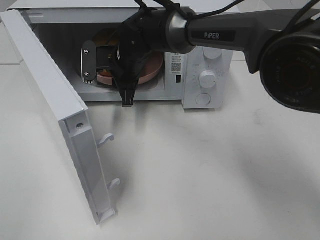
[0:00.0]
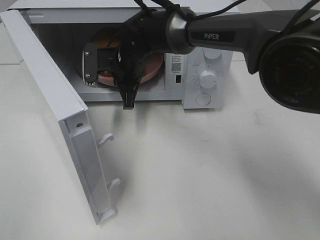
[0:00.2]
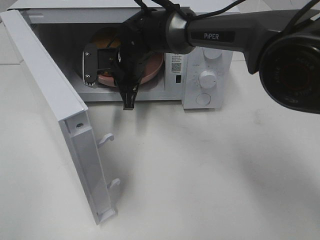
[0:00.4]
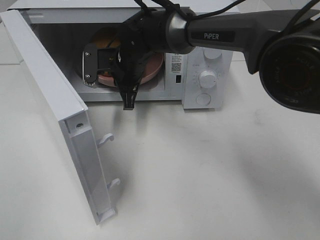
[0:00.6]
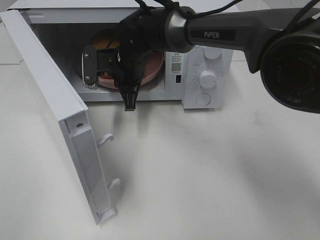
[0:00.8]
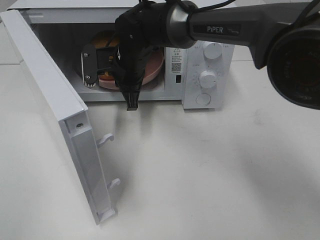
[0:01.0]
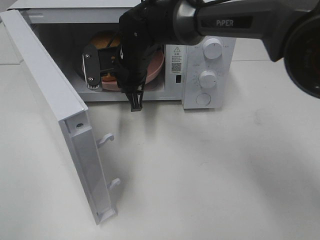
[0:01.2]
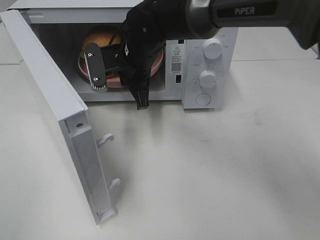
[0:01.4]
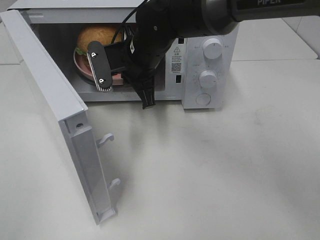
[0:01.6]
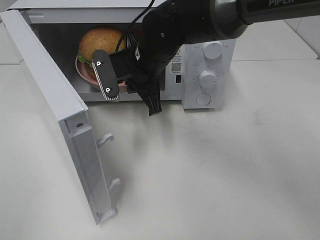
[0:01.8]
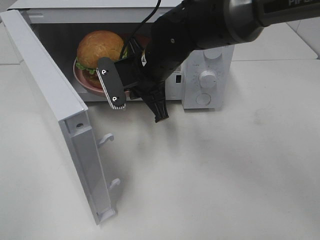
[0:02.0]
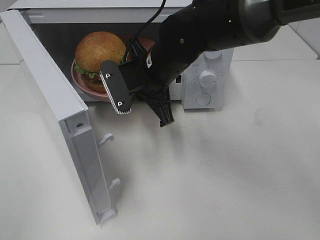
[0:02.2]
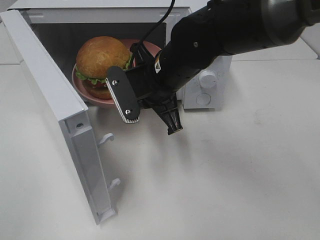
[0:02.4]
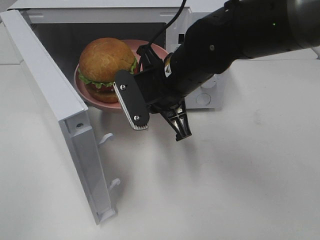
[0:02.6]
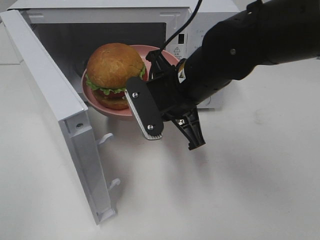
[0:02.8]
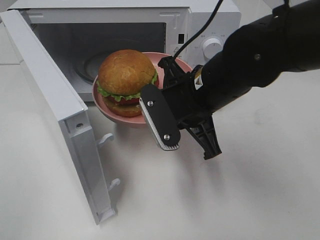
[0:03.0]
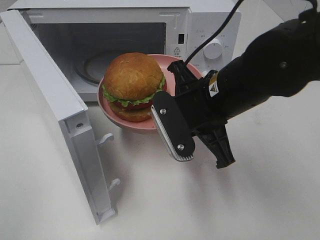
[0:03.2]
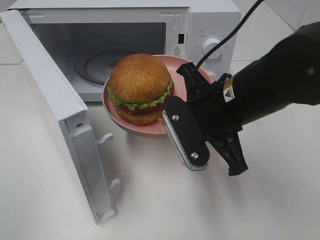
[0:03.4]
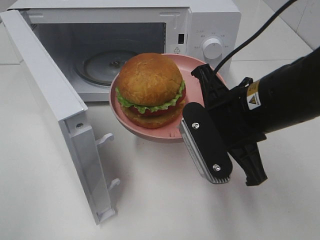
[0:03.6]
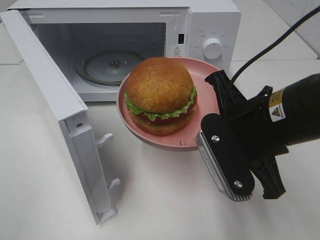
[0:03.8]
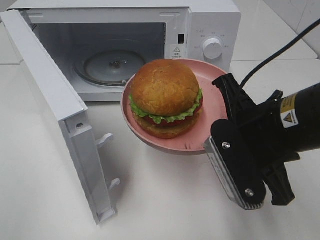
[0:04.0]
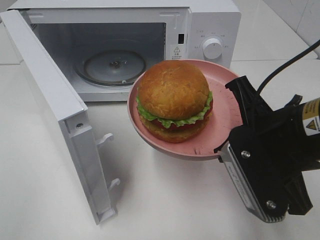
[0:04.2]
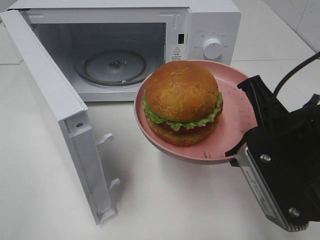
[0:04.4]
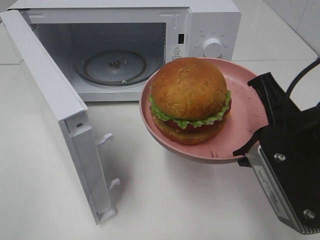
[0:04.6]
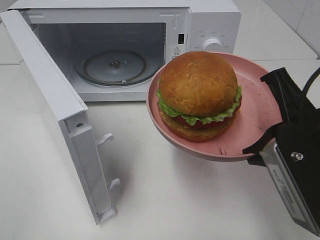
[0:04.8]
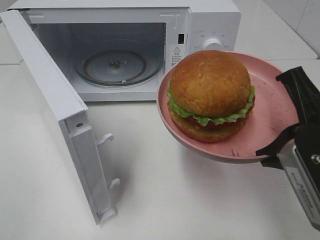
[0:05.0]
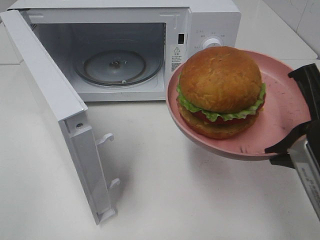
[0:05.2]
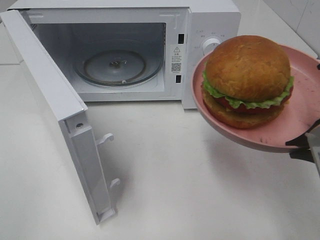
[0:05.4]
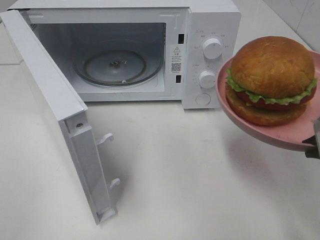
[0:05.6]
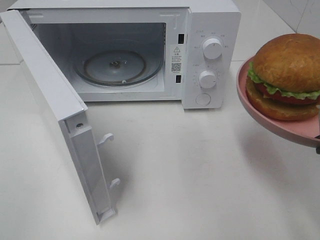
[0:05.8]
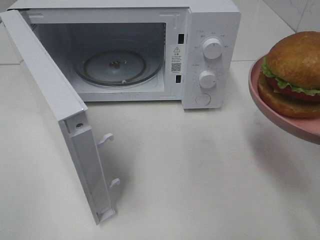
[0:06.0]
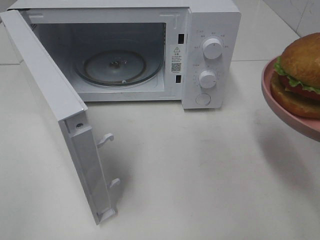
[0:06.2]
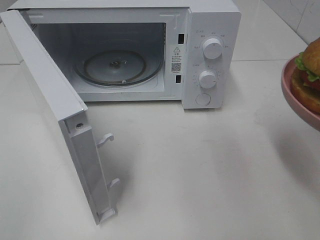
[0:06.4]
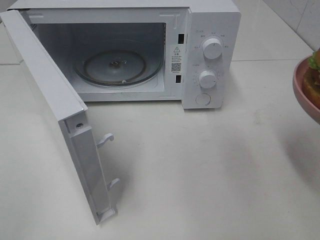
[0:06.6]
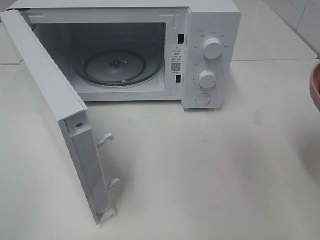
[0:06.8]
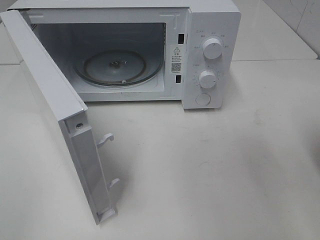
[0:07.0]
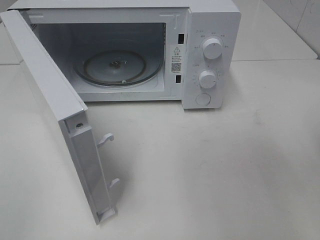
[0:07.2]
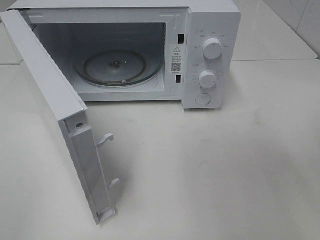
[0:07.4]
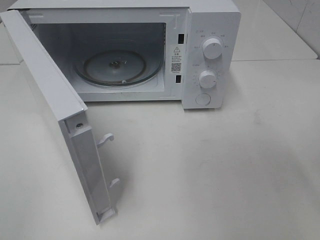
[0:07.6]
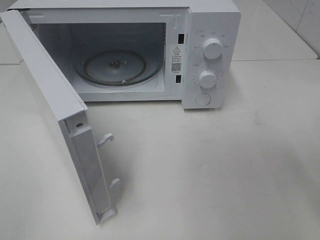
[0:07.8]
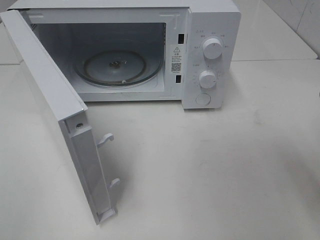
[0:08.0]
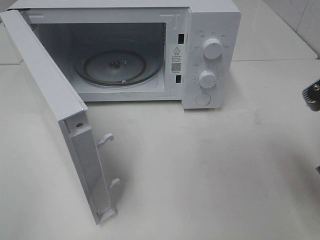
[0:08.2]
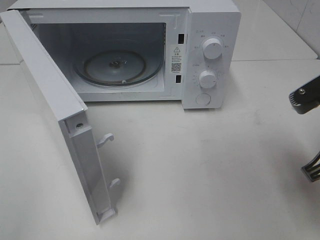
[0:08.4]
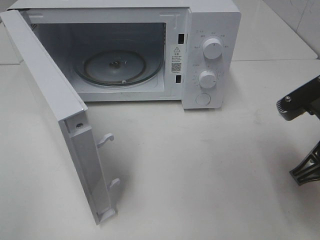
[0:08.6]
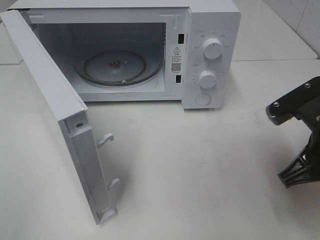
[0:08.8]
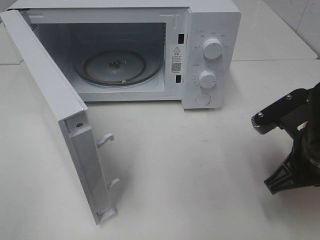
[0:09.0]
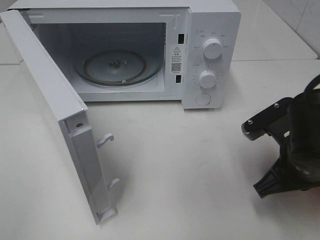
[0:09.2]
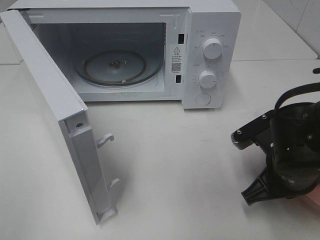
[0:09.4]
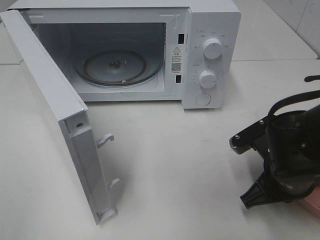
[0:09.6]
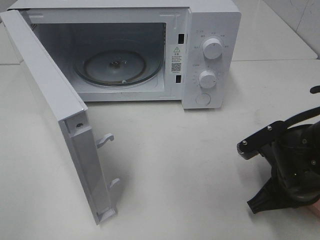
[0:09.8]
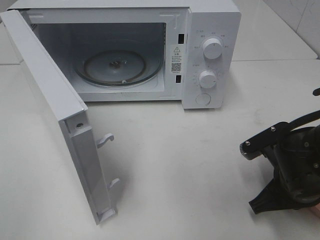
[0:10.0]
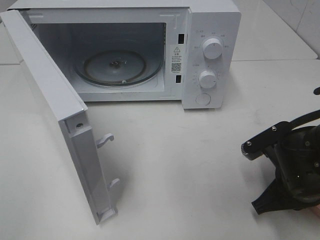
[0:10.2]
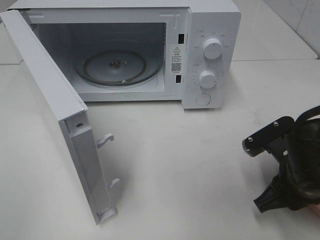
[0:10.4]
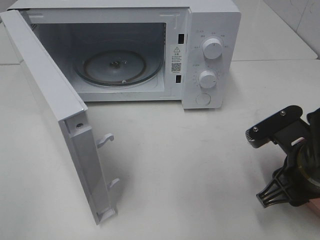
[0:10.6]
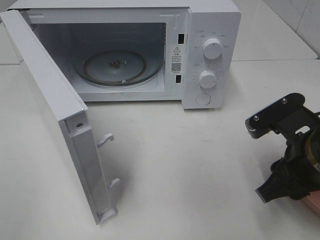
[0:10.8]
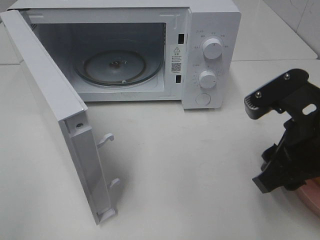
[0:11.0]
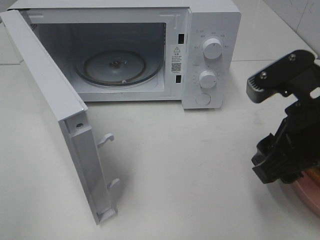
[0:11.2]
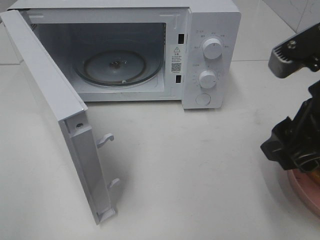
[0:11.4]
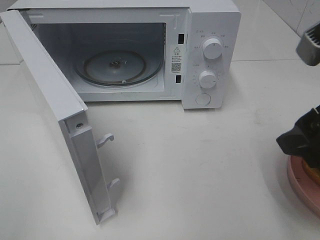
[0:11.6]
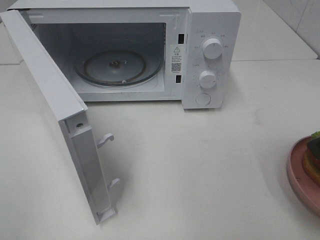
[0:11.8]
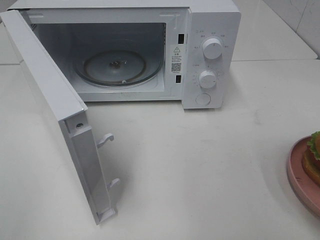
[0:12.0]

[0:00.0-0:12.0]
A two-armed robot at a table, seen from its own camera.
Task of the whole recording: Heat the burger.
Step, 0:00.6 to 0:10.6: Right hand: place the plate on the table.
0:00.0 to 0:01.6: The right gripper shifts by some 5 cm, and closes its fingers.
0:01.6 to 0:03.0: The right gripper travels backward and to the right by about 15 cm.
0:03.0 to 0:04.4: The right gripper moves backward and to the right, about 15 cm.
0:04.4 to 0:06.0: The right gripper goes approximately 5 cm to the right.
0:07.6 to 0:09.0: The right gripper moves downward, forward and to the left, approximately 15 cm.
0:09.0 to 0:10.4: The right gripper opens.
0:10.4 to 0:12.0: The right gripper is displaced upward and backward by approximately 20 cm, and opens.

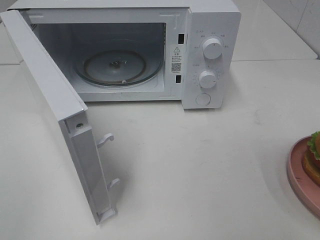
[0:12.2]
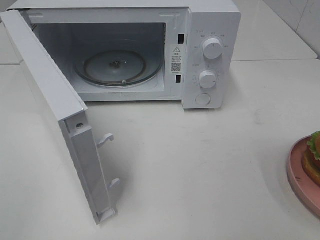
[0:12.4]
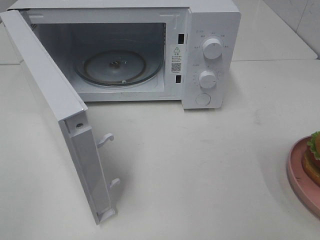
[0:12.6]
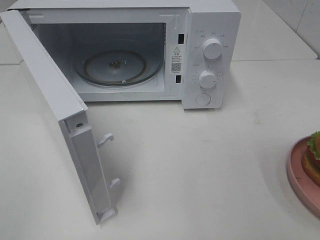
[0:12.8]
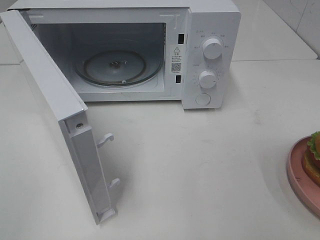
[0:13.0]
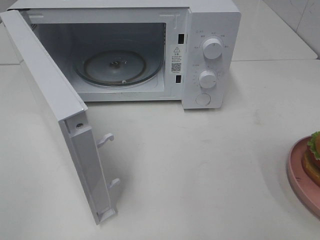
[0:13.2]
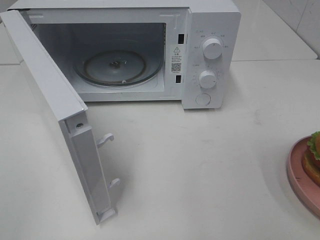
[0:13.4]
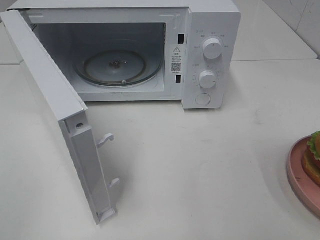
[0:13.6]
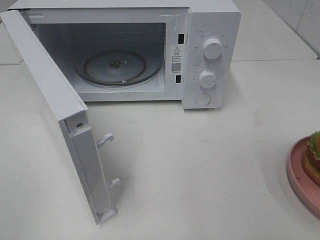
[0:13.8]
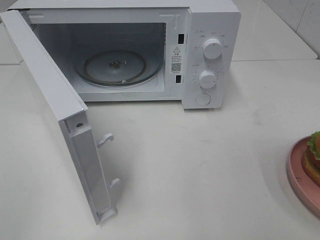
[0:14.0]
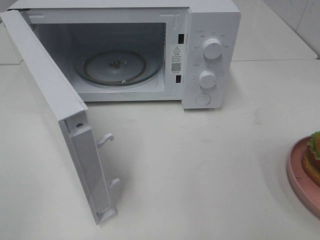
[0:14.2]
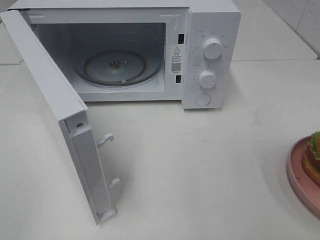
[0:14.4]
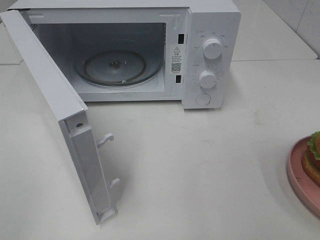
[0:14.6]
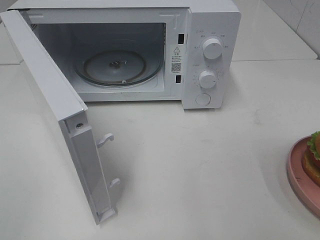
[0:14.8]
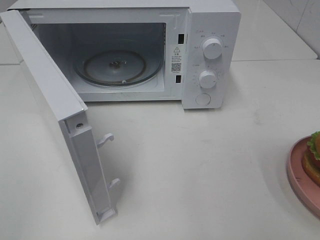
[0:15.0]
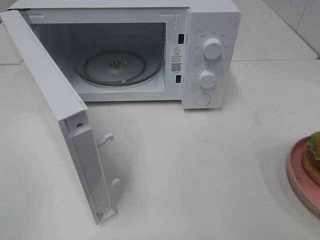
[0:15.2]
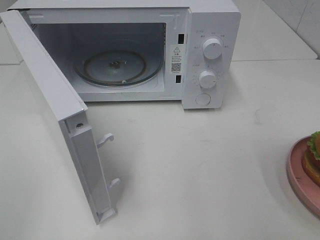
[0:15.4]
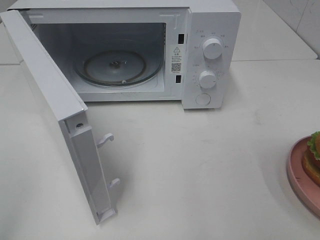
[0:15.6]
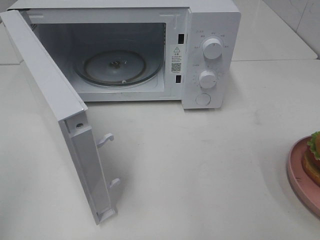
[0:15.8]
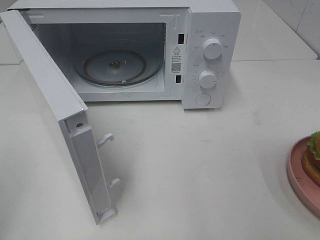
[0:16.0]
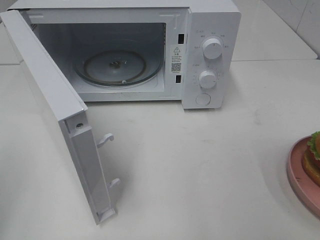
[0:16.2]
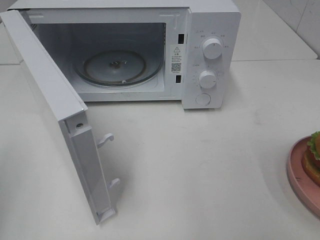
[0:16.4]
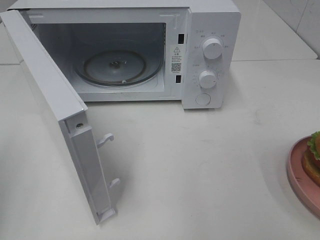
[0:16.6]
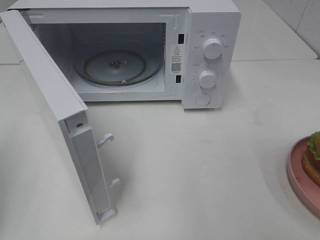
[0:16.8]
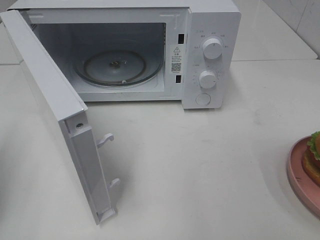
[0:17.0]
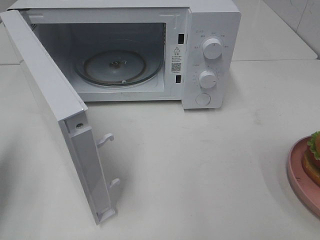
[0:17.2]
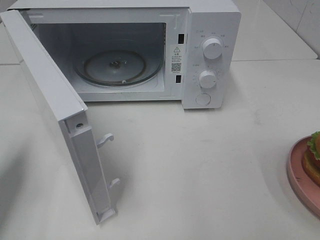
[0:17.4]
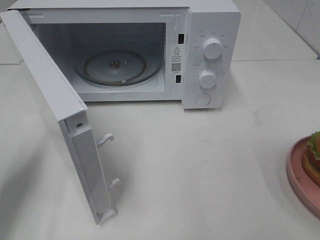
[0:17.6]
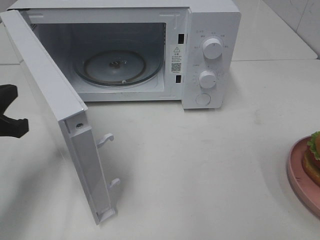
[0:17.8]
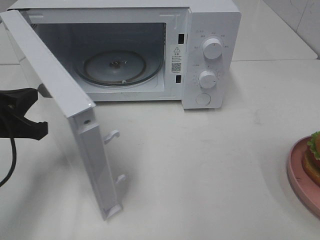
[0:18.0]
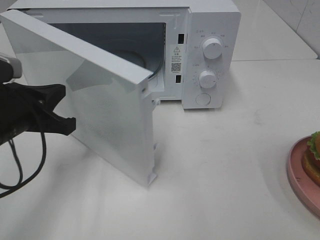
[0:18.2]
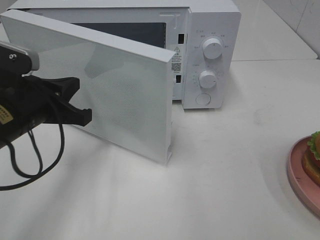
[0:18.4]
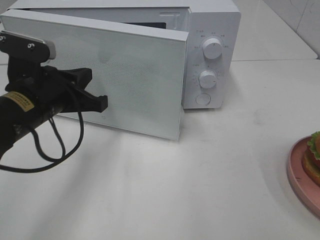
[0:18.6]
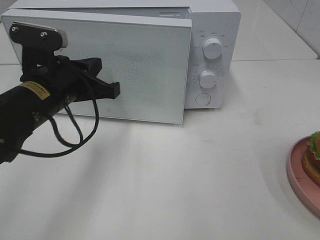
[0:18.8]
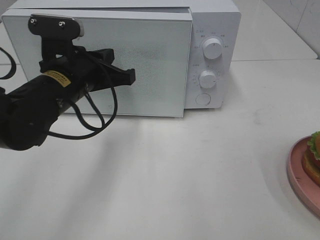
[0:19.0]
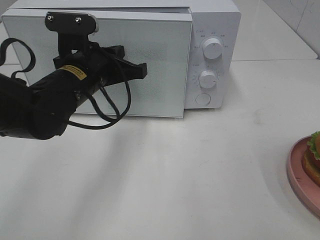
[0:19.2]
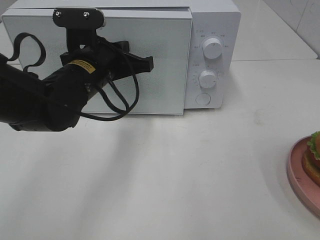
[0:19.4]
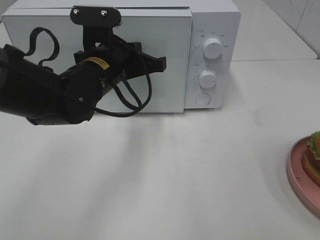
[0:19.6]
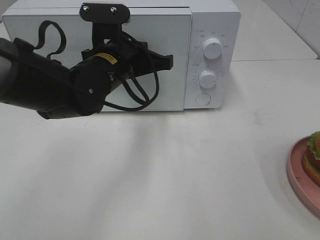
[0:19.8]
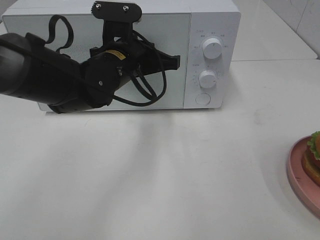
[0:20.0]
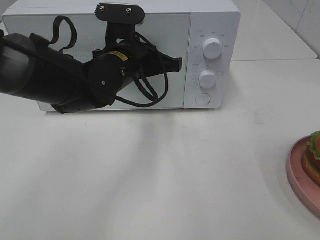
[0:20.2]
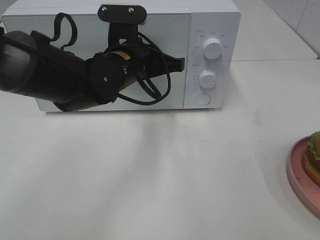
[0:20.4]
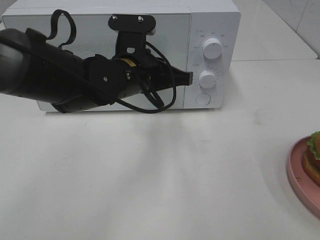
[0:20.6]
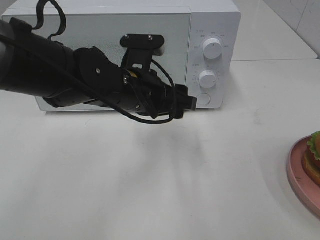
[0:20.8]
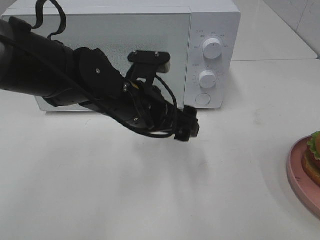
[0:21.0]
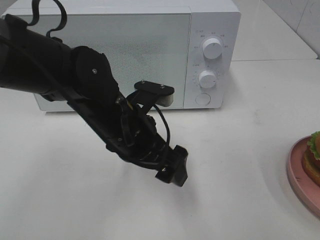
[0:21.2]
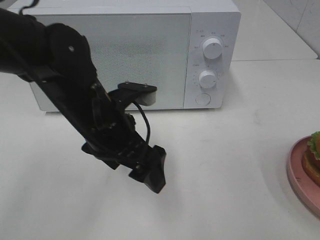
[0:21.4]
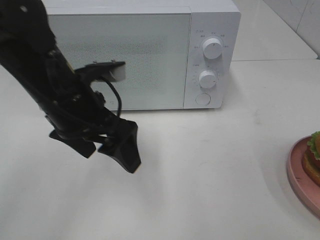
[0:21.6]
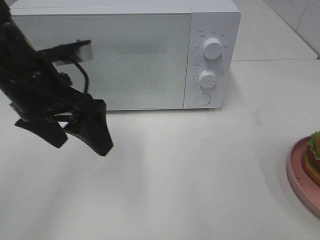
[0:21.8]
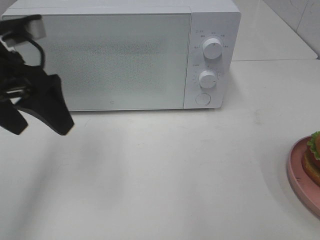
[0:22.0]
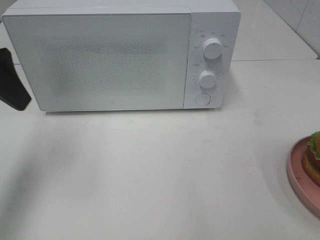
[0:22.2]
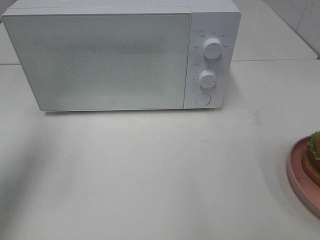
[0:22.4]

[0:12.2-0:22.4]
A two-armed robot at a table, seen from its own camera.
Task of the whole recording: Heat the burger.
Step, 0:12.2 to 0:21.0: Left hand: close the microwave door.
0:13.6 to 0:15.2: Both grippers stay put.
0:16.6 to 0:18.0: The left gripper goes about 15 cm forward, to the right and downward.
0:18.0 to 0:19.4: The left gripper heads to the right and forward, covering about 20 cm.
0:19.4 to 0:21.0: The left gripper goes some 5 cm to the right, and opens up.
0:21.0 to 0:22.4: The left gripper heads to the left and upward, covering about 30 cm.
